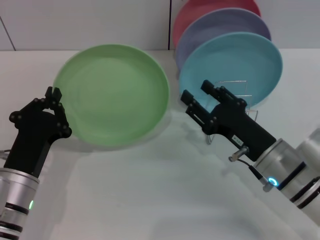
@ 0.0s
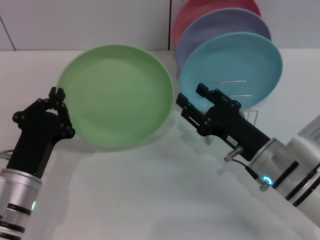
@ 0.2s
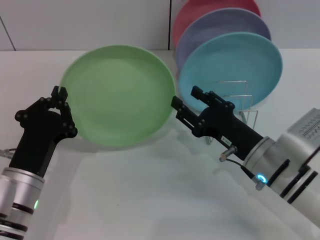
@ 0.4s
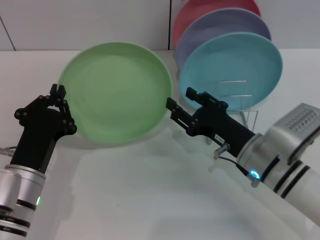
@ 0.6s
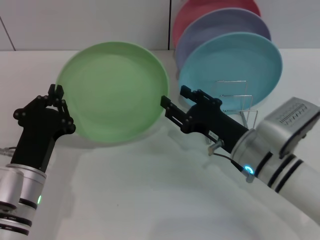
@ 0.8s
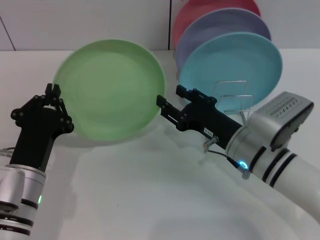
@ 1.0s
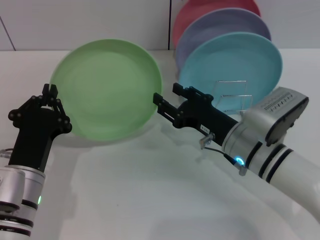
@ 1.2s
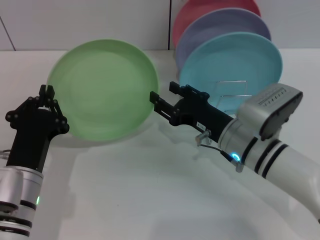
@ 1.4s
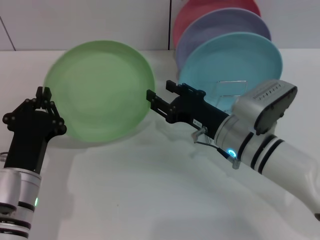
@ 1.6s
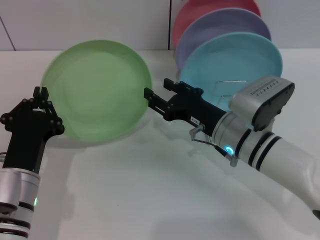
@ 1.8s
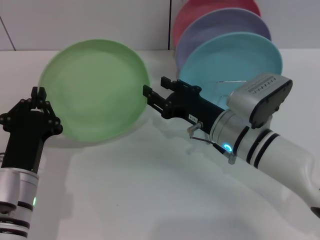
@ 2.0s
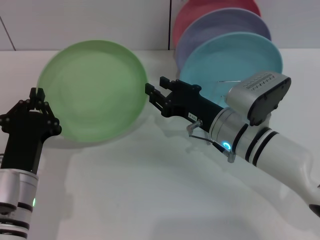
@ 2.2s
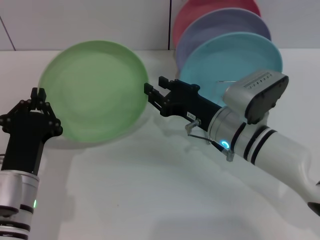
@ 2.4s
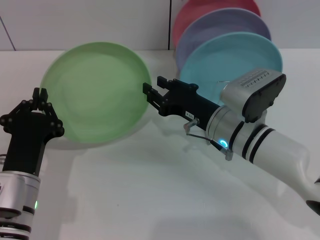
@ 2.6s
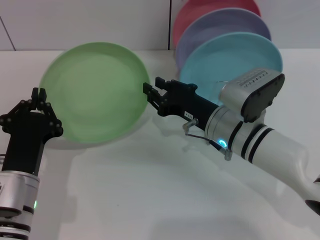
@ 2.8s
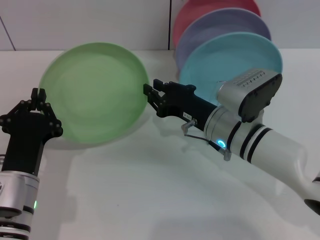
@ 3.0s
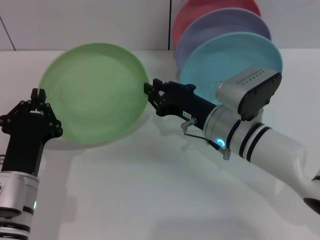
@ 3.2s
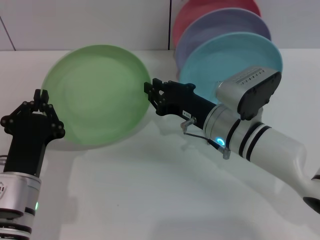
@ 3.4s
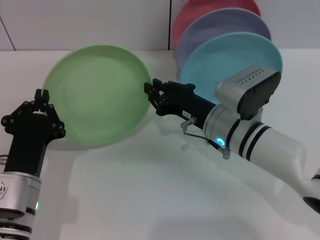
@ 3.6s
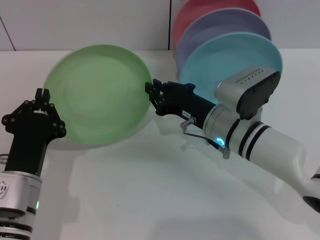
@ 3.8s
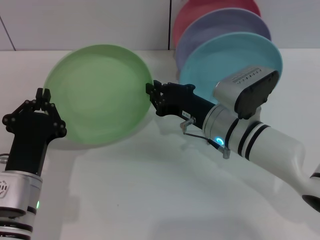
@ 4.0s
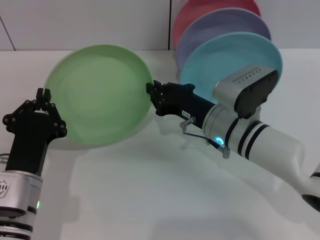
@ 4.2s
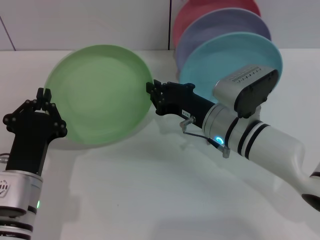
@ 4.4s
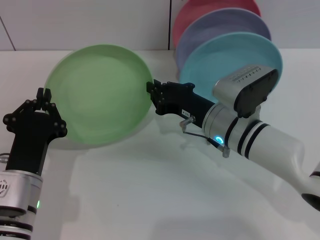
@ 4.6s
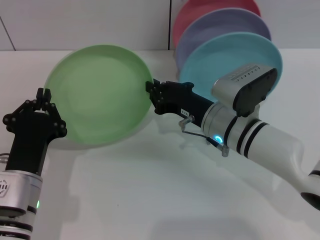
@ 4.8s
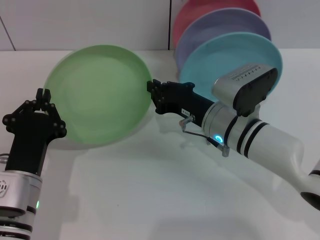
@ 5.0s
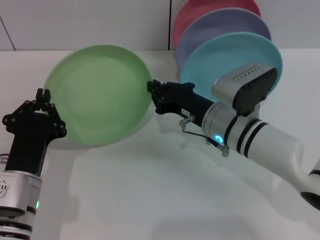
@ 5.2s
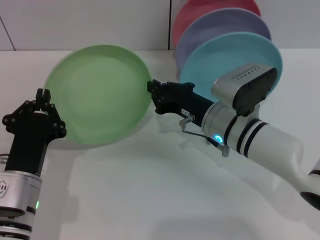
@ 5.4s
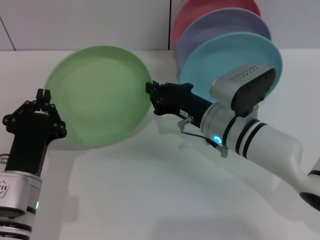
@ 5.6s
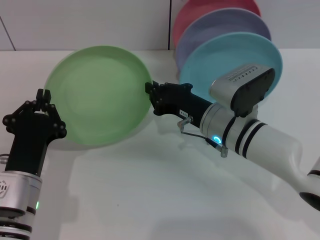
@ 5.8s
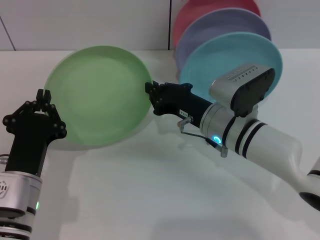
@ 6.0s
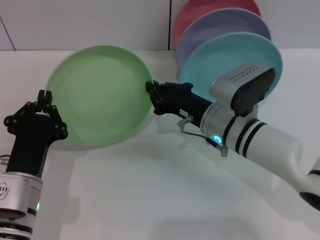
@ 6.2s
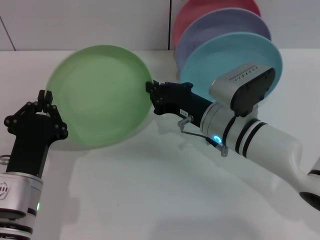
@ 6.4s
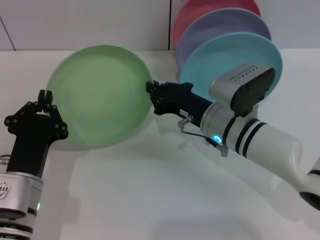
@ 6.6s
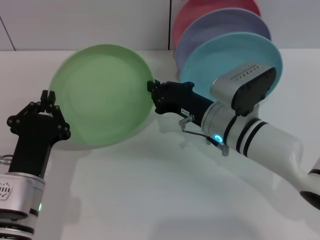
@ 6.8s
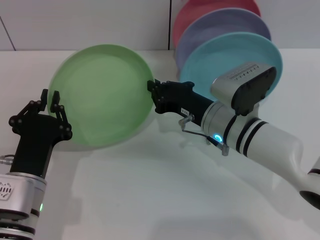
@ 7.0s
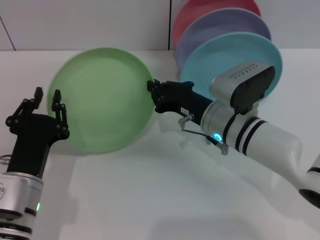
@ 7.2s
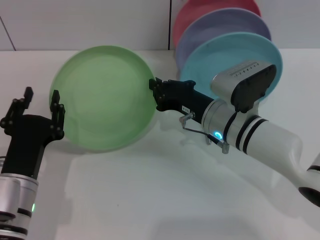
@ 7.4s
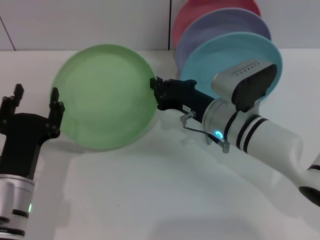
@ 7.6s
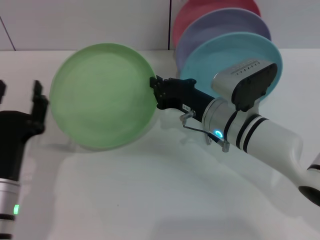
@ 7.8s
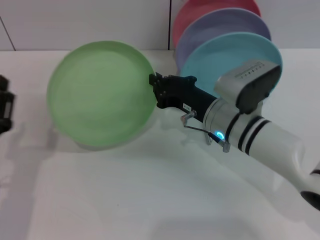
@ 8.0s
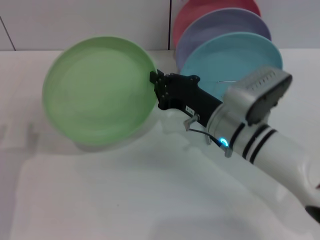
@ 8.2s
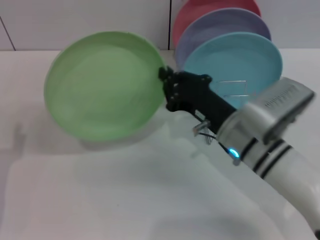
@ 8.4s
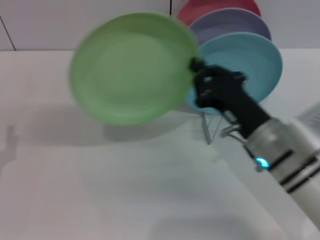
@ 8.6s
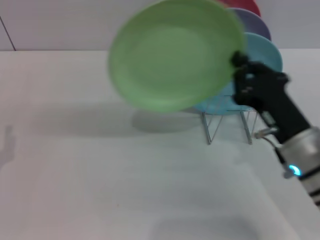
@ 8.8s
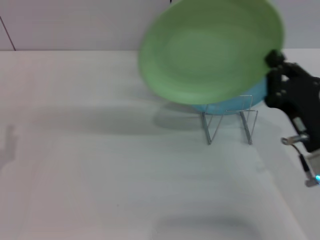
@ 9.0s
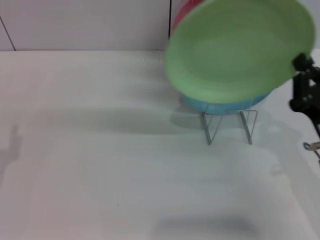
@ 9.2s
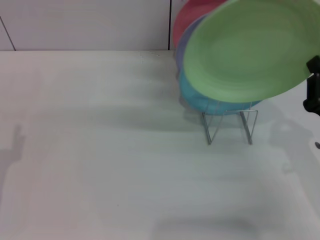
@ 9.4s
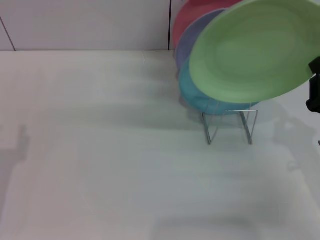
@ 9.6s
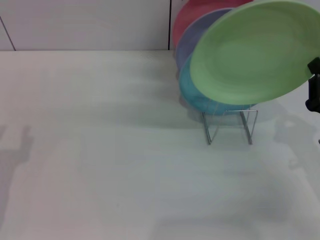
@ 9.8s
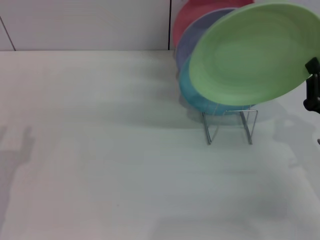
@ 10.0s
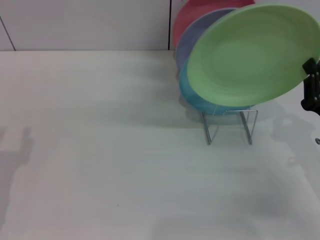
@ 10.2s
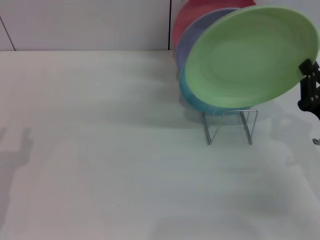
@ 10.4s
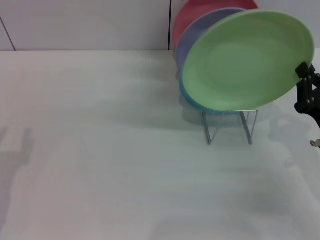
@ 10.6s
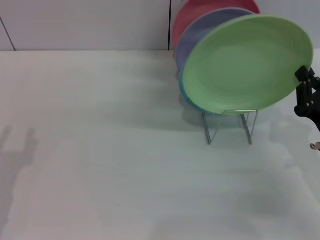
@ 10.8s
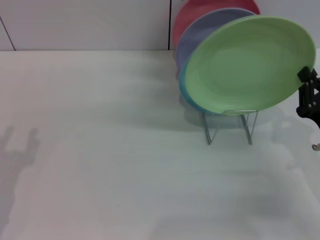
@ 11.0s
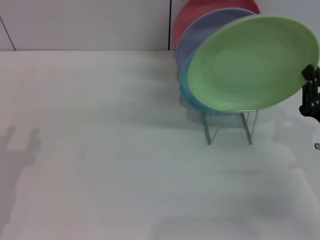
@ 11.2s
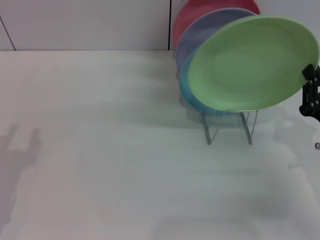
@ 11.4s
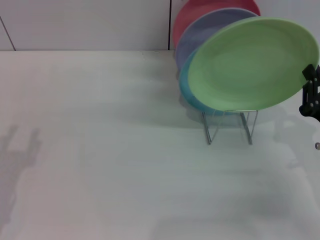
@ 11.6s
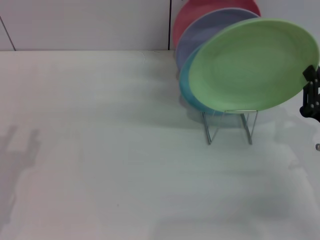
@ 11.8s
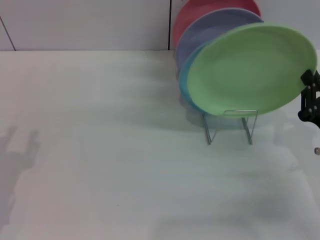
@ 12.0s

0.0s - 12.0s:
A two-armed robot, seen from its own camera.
Task of the whole recording: Grip the plate with one hand, pass it to the other, then set it on the shelf.
Step, 0.0s - 7.6s: Pass the plate from the left gripper to the right gripper.
0.0s - 1.6s: The right gripper moves forward, approximately 5 cm.
1.6s - 3.0s: The grippers make only small movements.
3.0s - 4.4s: The right gripper closes up.
4.4s - 6.0s: Both grippers stay about where they are.
6.0s - 7.6s: The left gripper opens up.
7.6s - 9.0s: The left gripper shifts approximately 10 cm to the left. The right gripper moves backward and to the right, some 15 cm.
9.0s - 10.4s: The right gripper shifts some 5 cm to the right.
10.4s - 12.0s: The grippers stay close to where they were, moving slightly.

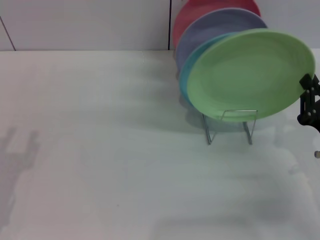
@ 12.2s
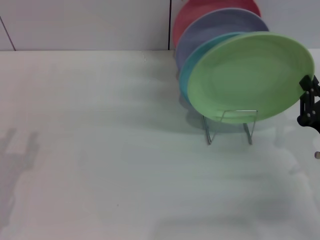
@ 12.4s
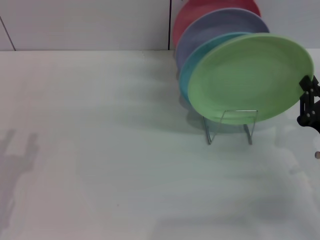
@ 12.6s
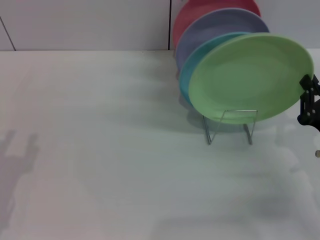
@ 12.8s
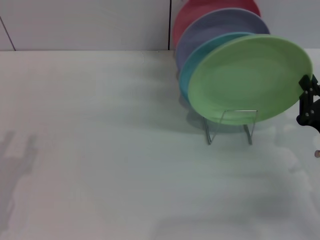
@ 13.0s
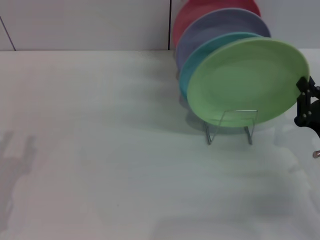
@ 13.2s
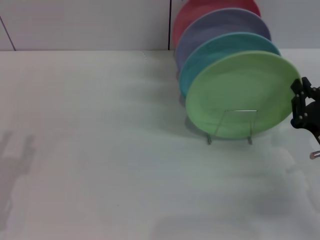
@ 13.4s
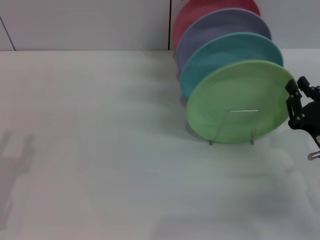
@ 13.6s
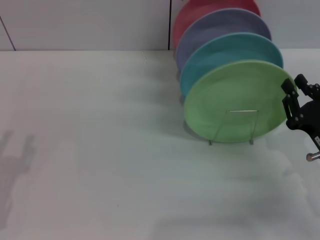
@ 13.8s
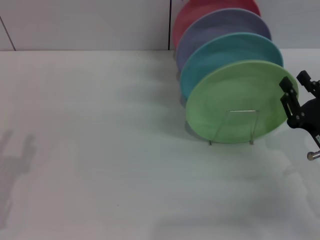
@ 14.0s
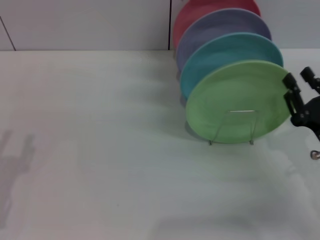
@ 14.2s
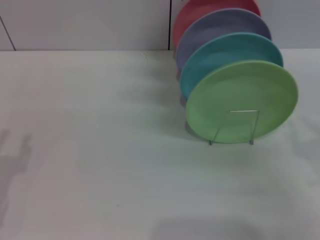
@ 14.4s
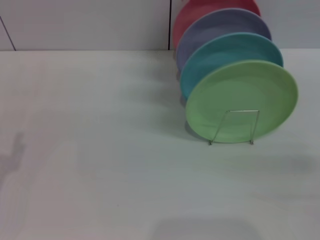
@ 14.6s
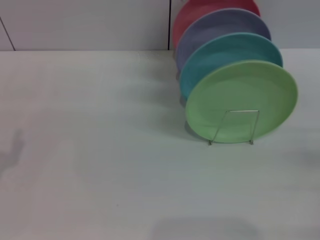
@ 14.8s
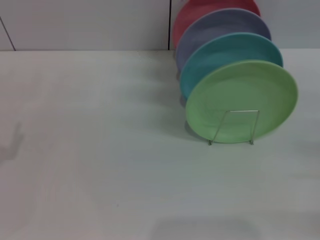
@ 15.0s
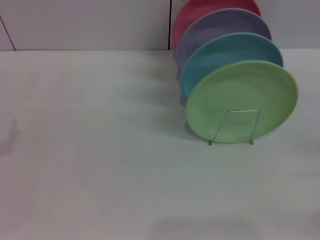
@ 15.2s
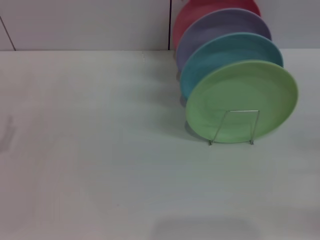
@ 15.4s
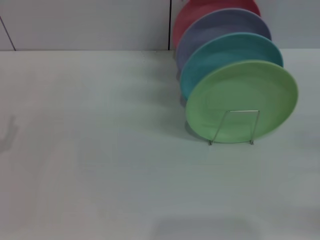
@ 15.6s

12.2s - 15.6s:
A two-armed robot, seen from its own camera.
Task of the whole recording: Grip the plate with one hand, pass it to the other, then set it on the shelf.
12.2s - 13.8s: The grippers move only a little.
13.8s - 15.6s: The right gripper goes some 15 cm to the right, and opens.
